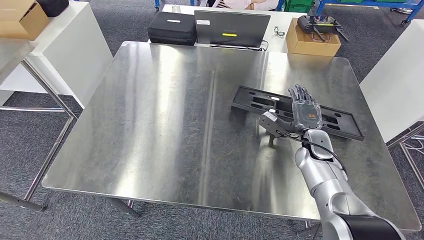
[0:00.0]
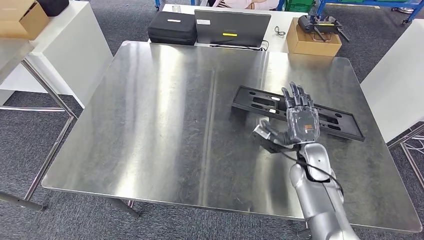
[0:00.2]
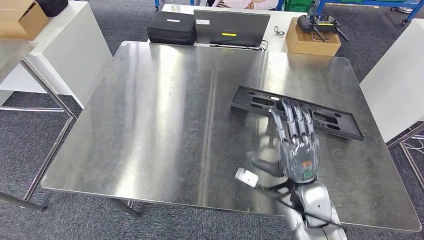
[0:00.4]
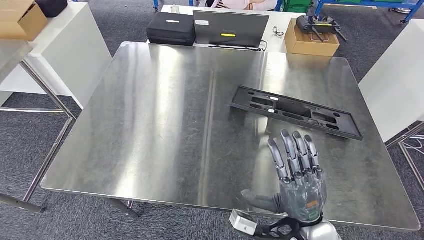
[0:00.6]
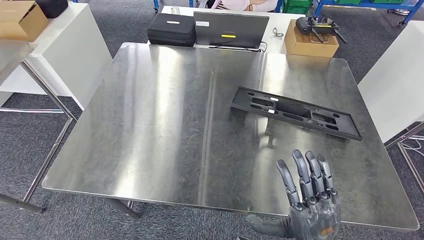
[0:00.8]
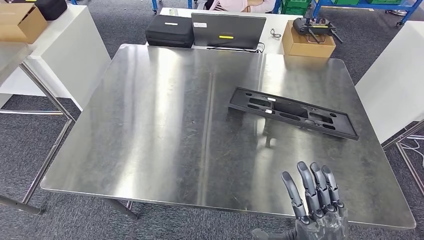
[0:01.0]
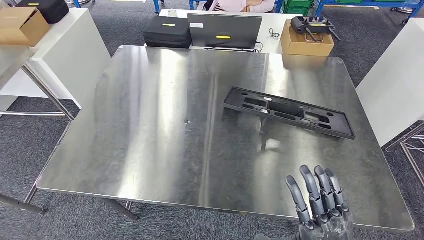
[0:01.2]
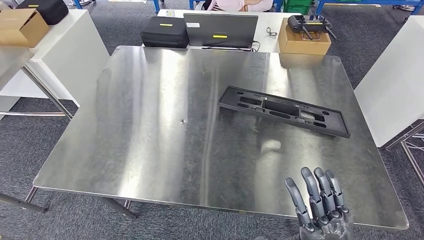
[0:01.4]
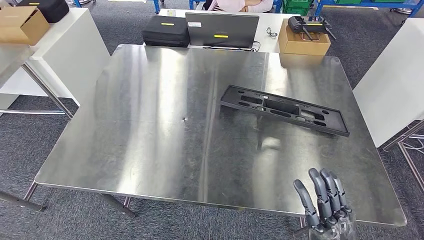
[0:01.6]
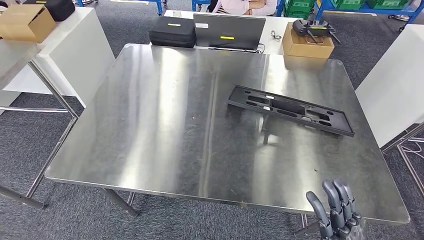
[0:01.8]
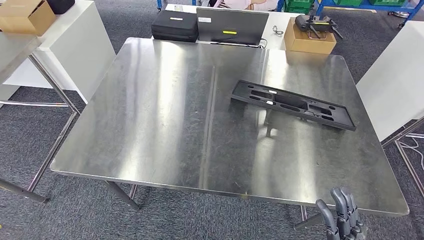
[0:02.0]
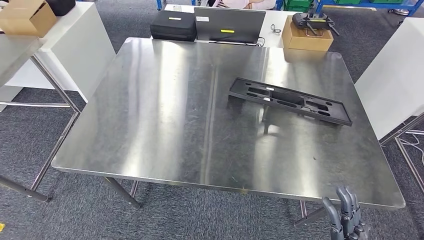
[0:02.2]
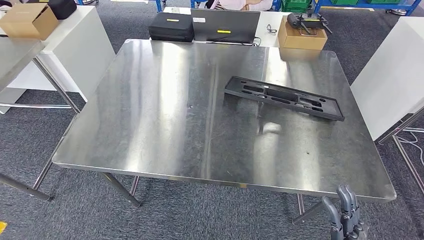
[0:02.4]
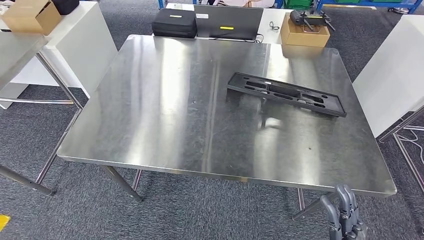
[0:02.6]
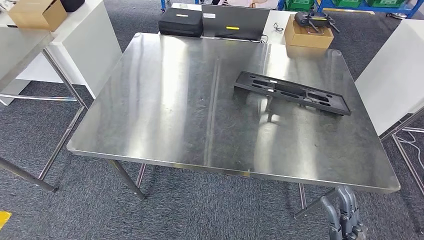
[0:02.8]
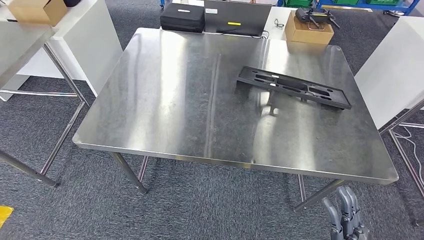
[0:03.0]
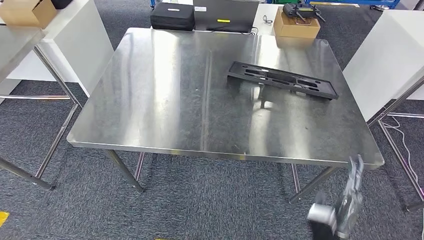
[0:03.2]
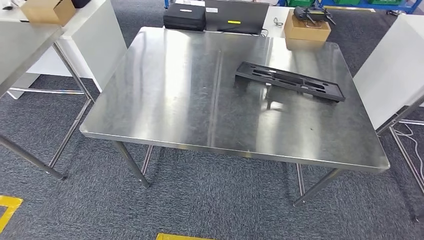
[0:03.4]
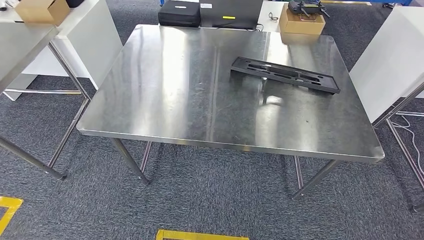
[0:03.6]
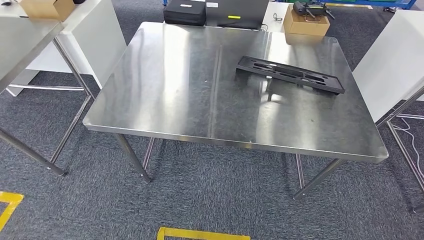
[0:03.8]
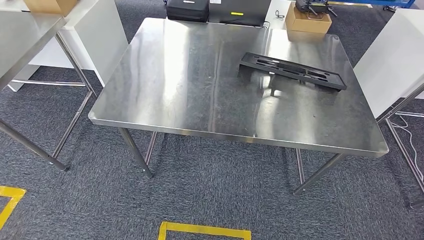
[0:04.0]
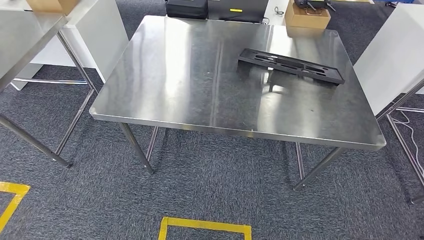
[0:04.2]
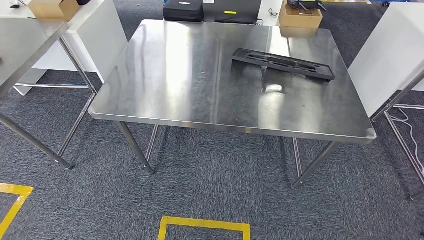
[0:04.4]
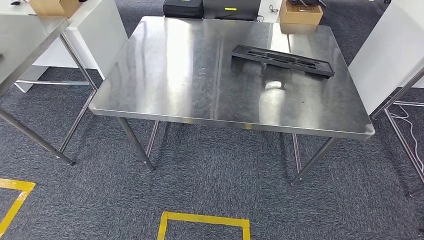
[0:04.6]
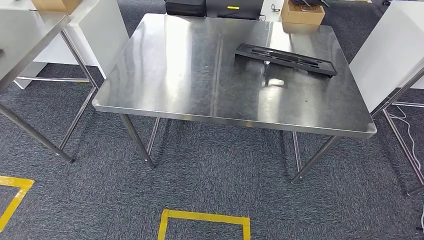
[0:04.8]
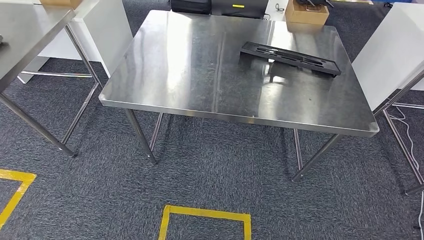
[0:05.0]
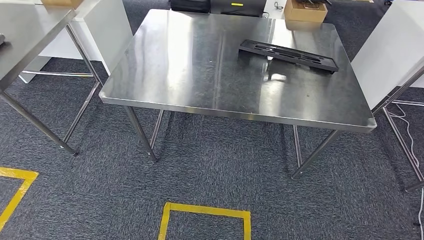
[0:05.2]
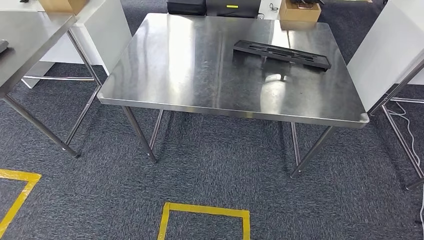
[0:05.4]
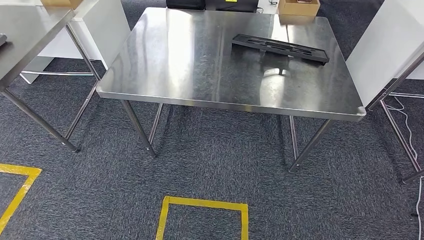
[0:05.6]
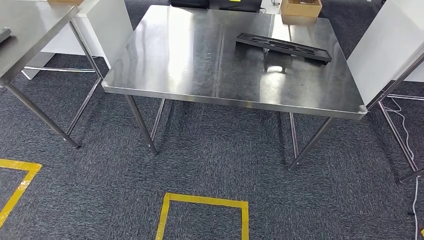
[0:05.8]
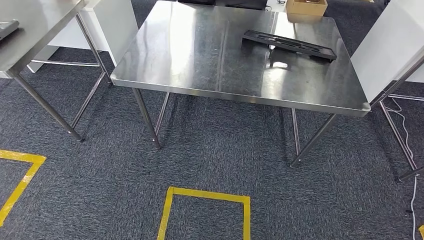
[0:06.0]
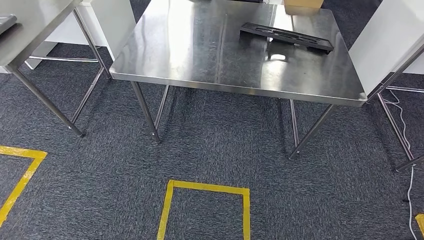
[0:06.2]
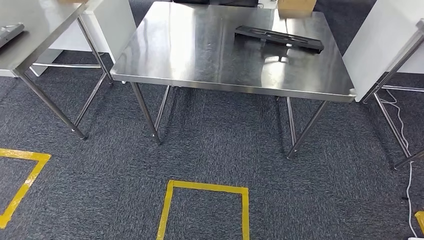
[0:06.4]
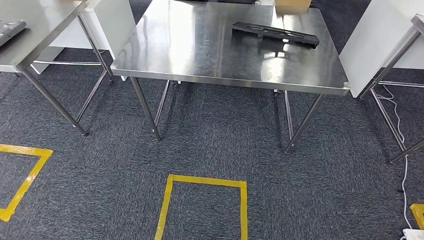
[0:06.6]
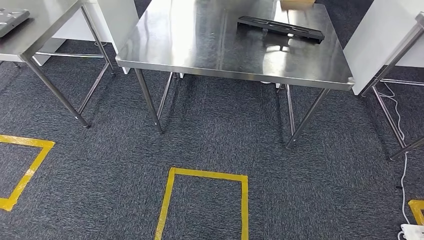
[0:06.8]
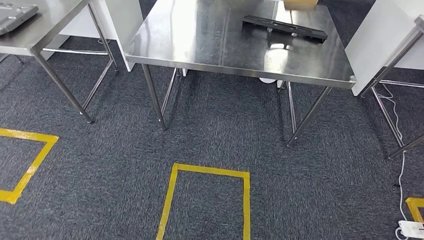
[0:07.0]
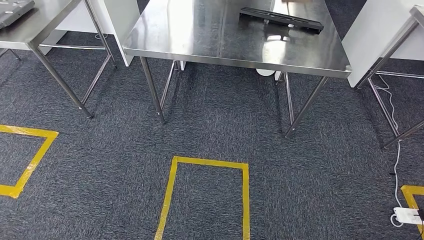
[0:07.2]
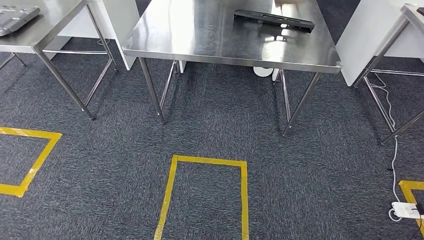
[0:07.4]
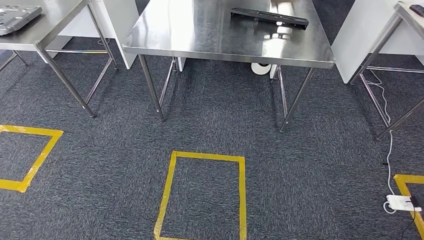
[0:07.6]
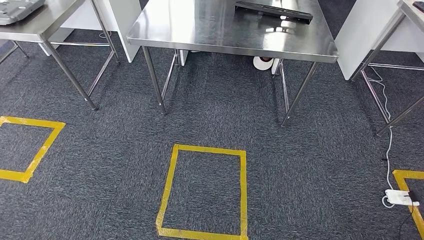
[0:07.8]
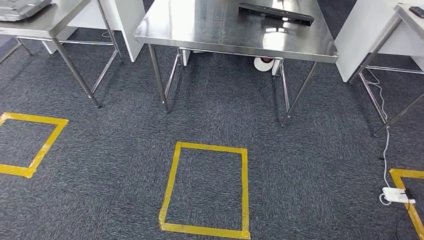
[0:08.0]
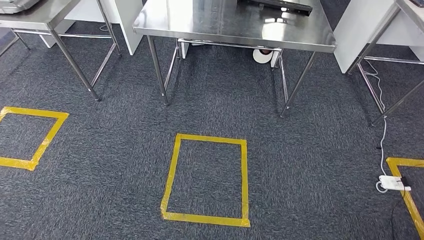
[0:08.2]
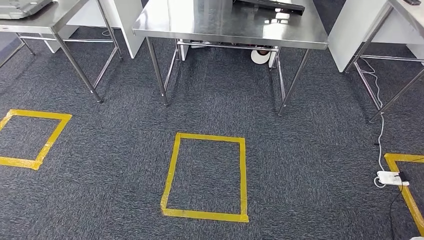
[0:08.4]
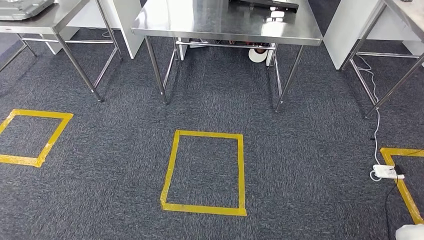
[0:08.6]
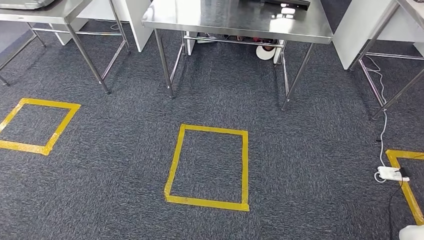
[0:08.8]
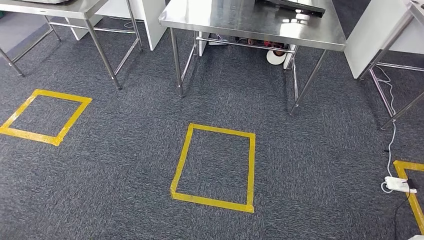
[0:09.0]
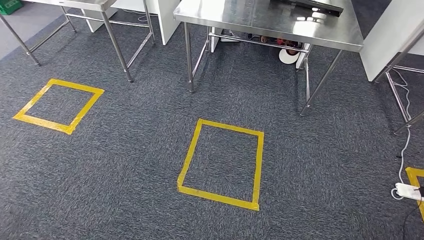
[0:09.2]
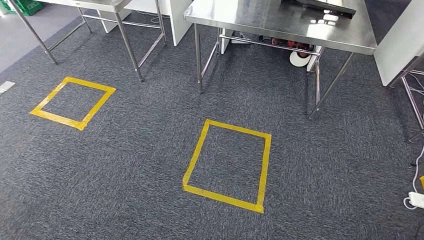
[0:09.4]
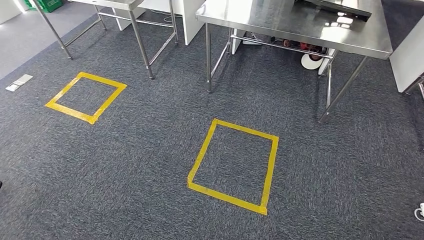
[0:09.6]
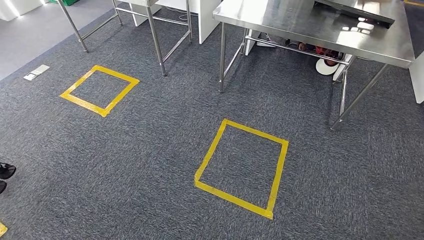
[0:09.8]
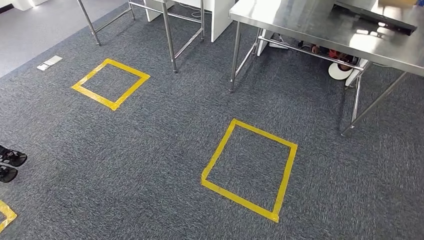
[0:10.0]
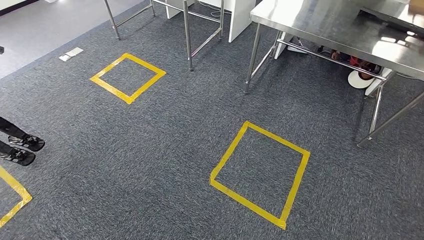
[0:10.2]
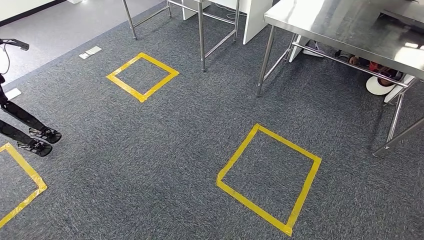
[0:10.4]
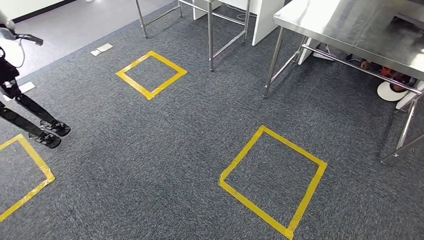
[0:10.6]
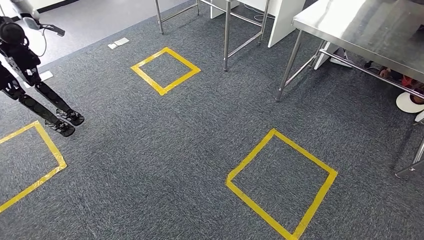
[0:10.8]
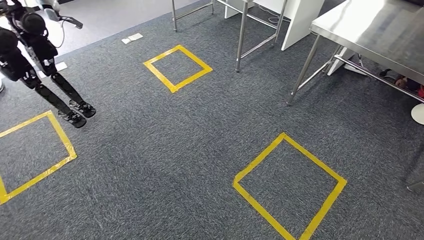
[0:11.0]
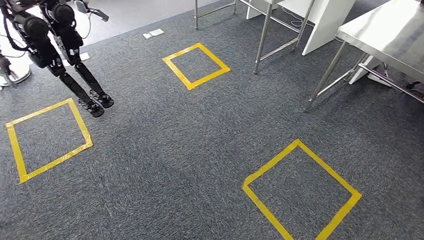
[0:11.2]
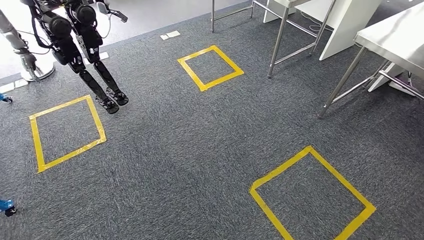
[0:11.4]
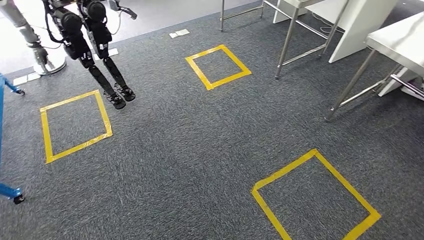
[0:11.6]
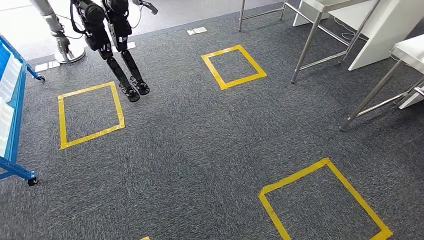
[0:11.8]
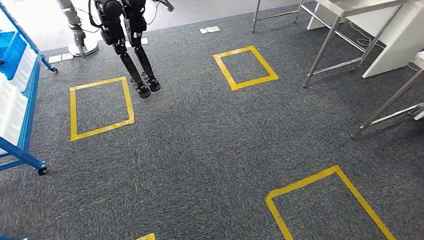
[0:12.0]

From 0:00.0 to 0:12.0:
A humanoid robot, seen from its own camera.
Step, from 0:00.0 to 0:02.2: Insert the large material into the corresponding slot on the workbench.

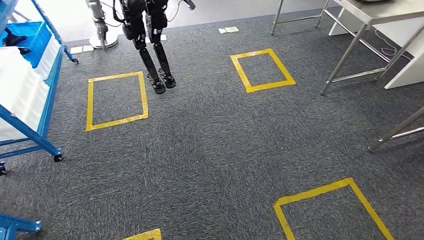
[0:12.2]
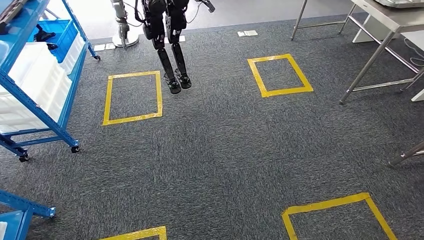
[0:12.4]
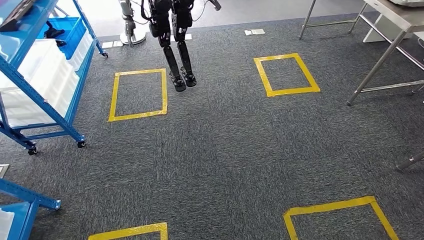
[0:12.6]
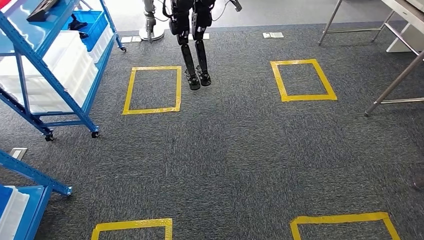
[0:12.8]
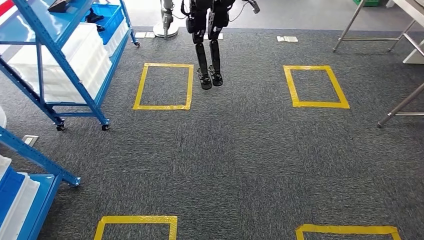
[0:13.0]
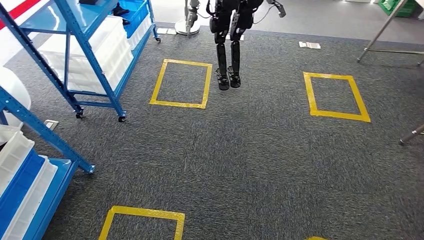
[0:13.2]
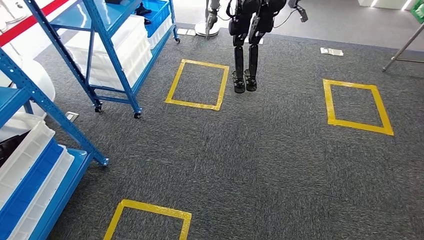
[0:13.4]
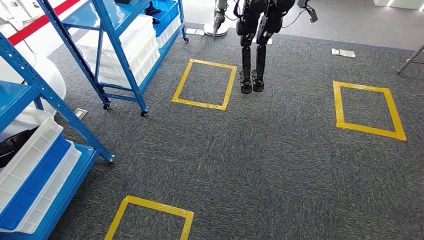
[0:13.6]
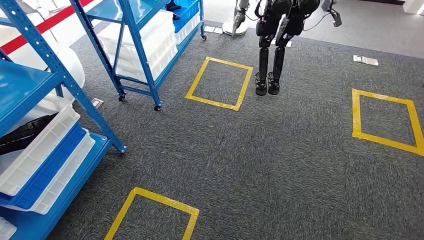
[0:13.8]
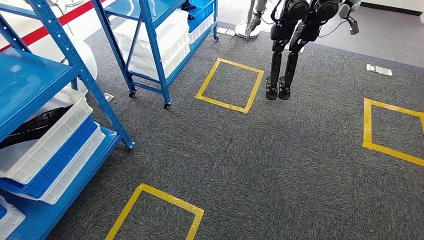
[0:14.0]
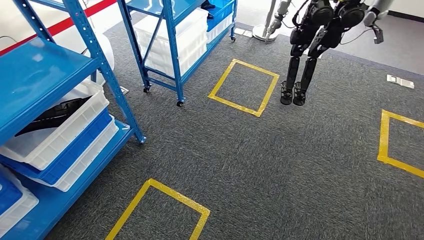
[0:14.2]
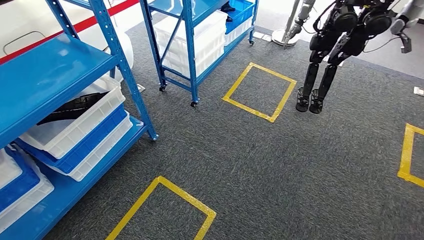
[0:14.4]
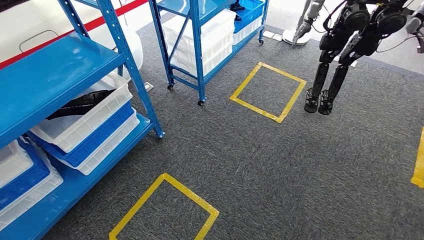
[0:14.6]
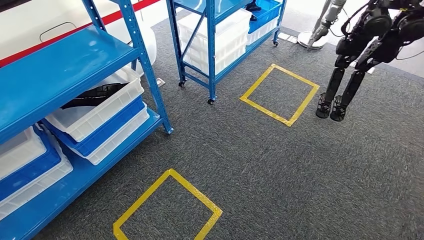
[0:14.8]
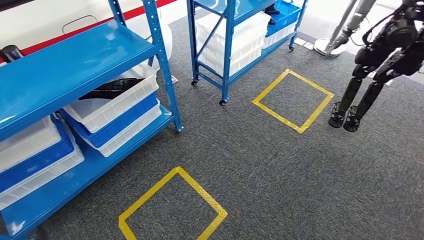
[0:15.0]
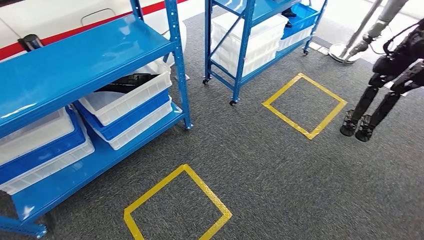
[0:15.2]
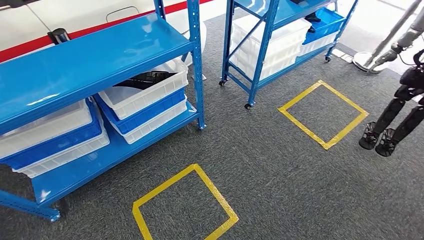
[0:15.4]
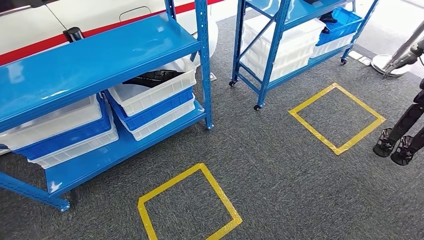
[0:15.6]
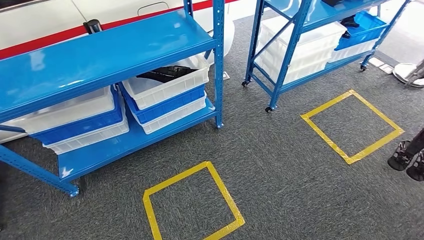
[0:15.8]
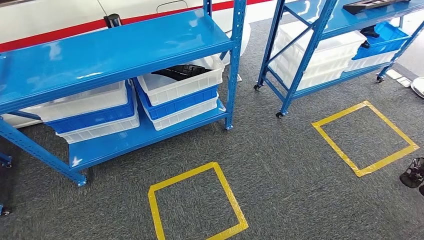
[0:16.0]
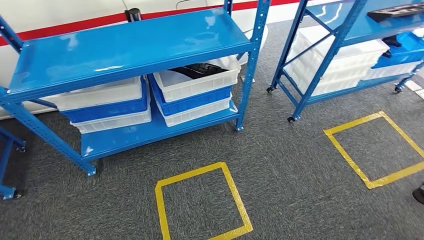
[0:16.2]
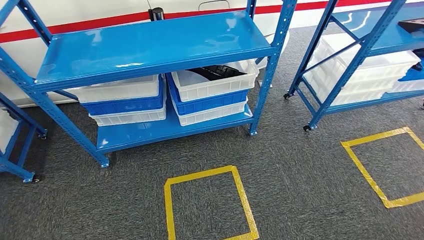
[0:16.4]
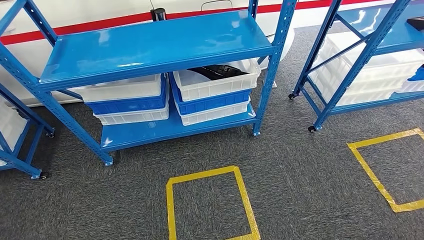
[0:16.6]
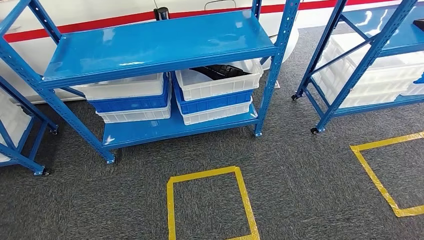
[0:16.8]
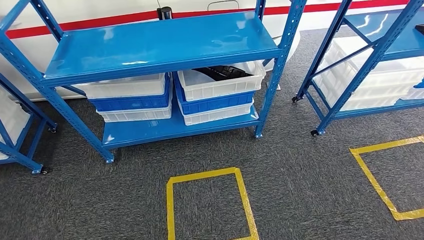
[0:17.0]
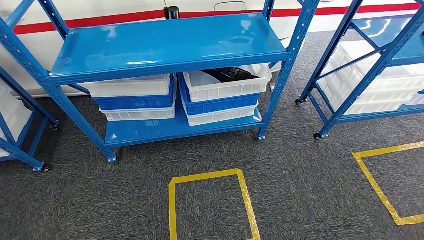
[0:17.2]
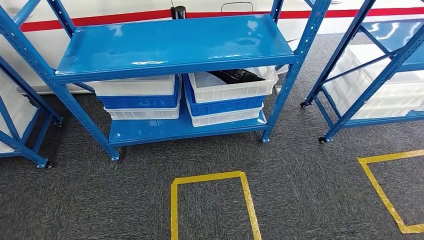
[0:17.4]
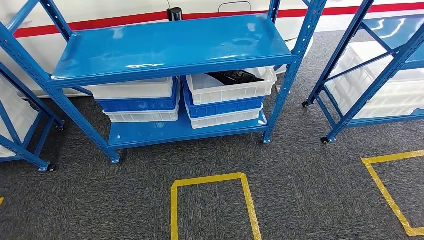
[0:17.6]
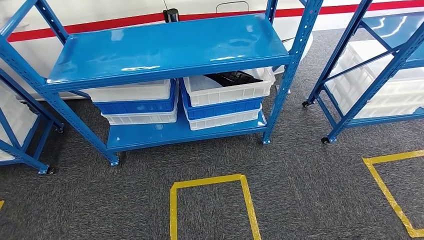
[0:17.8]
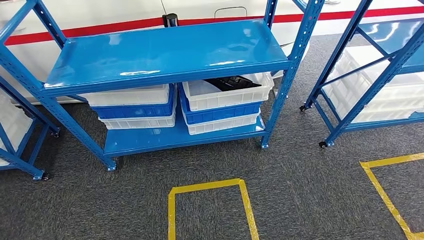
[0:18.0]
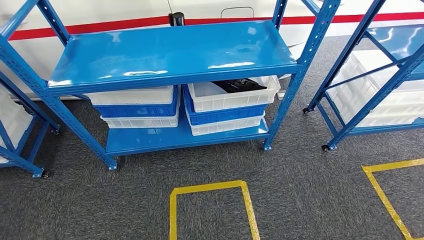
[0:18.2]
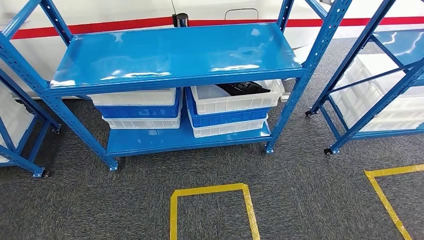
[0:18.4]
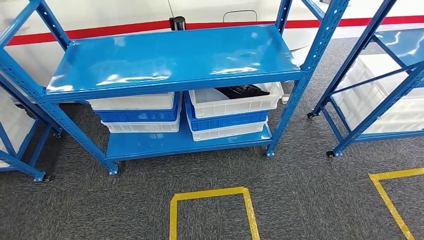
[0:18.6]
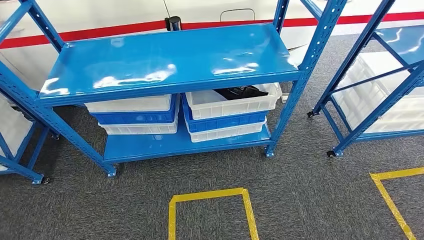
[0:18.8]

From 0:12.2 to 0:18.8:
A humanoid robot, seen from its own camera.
Step, from 0:12.2 to 0:18.6: Return to the initial position at the shelf.
